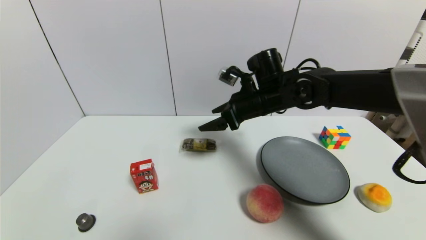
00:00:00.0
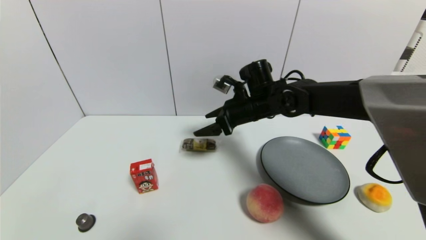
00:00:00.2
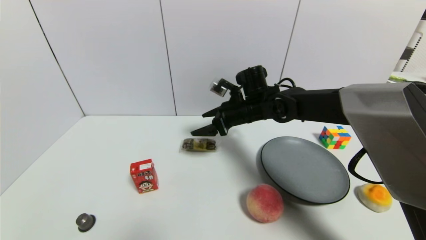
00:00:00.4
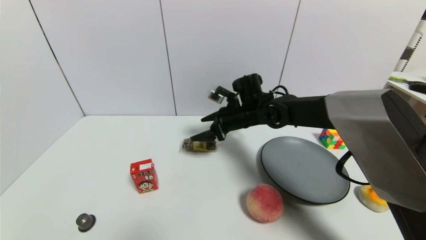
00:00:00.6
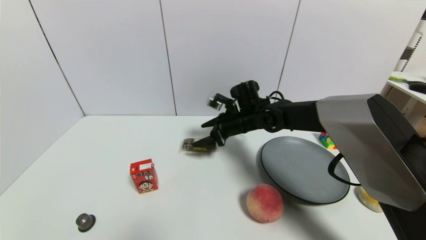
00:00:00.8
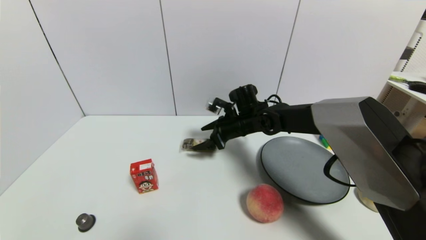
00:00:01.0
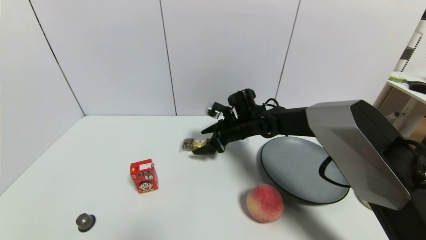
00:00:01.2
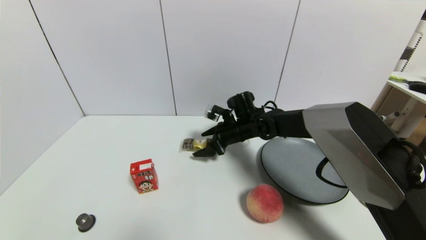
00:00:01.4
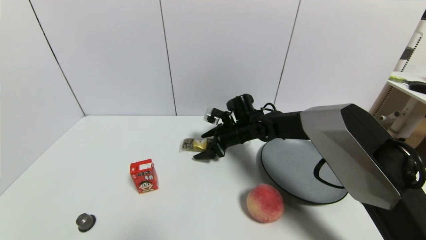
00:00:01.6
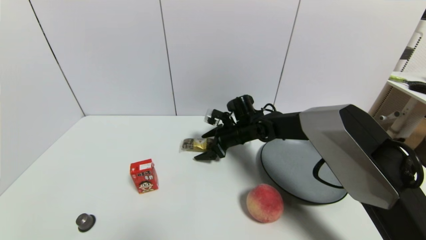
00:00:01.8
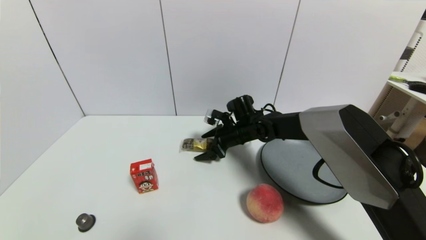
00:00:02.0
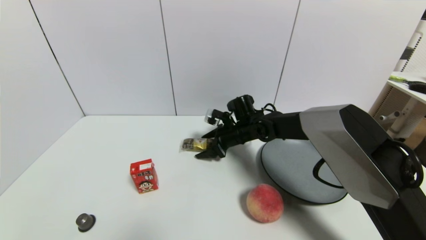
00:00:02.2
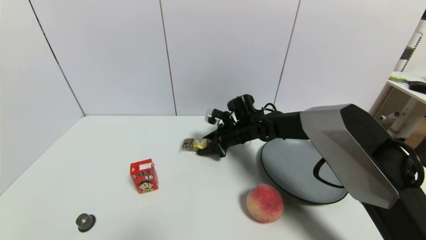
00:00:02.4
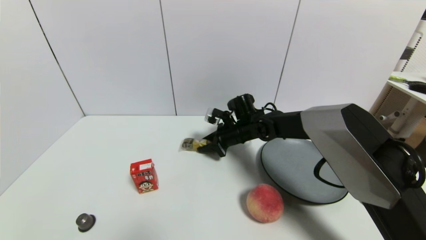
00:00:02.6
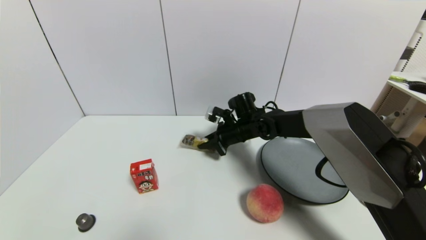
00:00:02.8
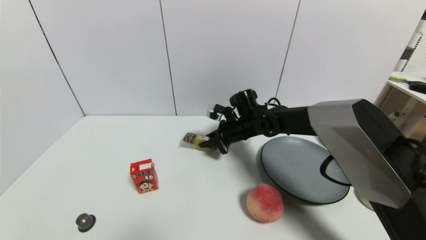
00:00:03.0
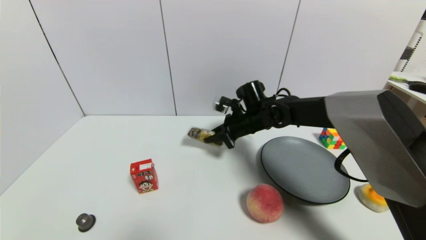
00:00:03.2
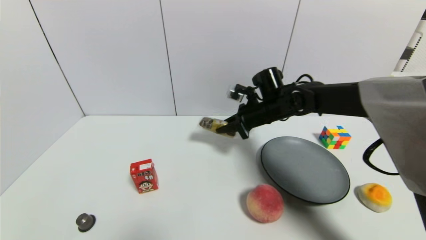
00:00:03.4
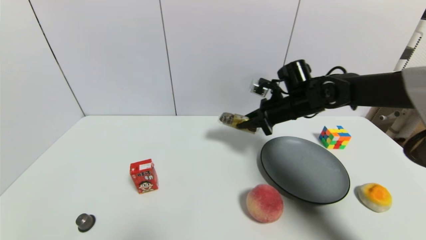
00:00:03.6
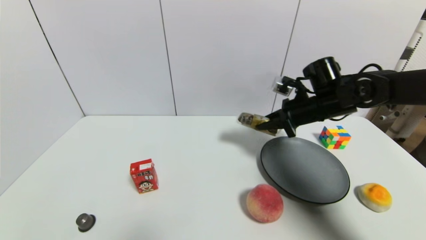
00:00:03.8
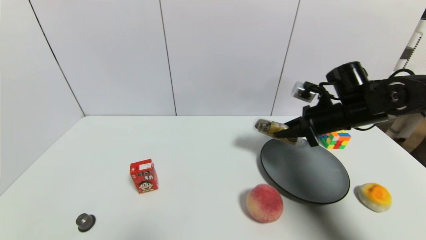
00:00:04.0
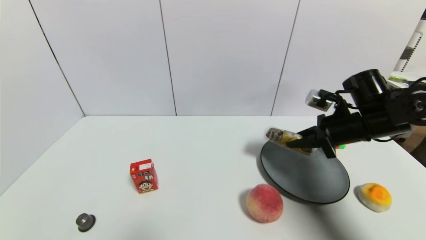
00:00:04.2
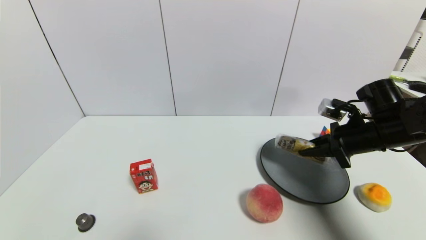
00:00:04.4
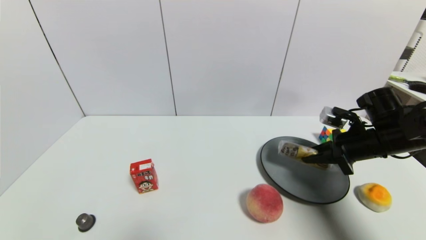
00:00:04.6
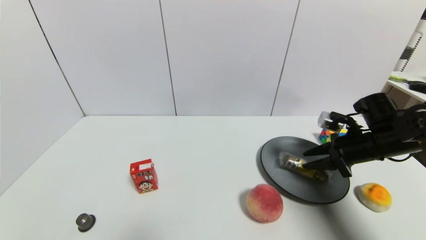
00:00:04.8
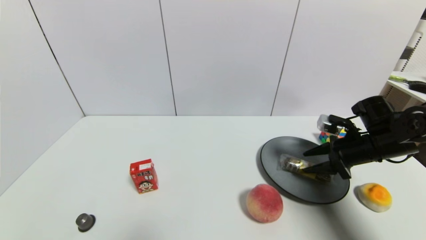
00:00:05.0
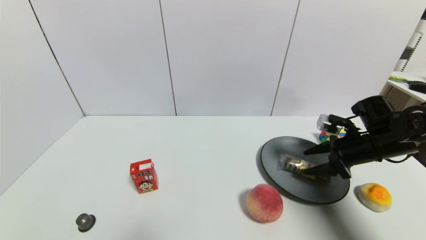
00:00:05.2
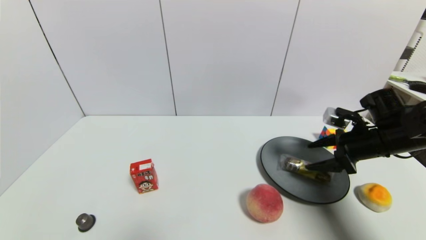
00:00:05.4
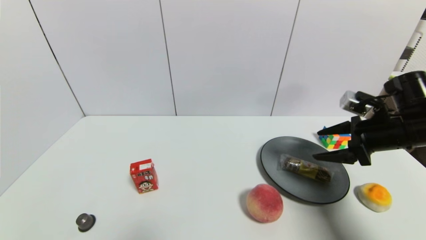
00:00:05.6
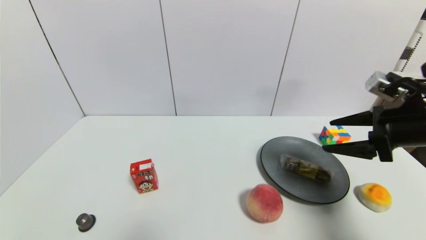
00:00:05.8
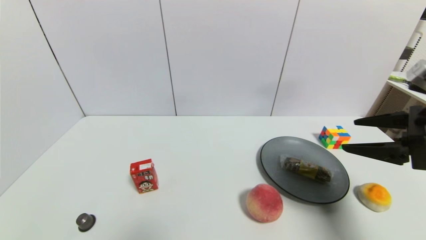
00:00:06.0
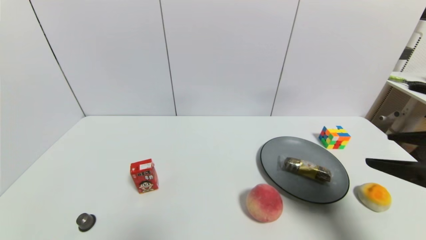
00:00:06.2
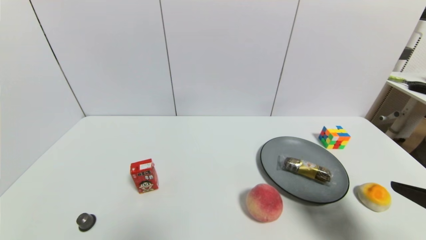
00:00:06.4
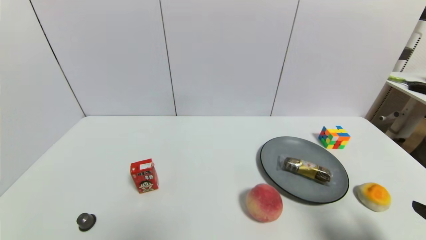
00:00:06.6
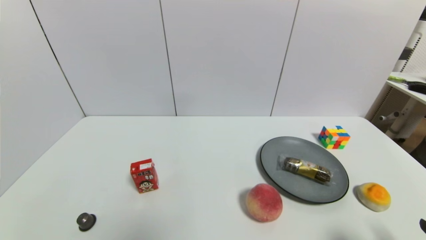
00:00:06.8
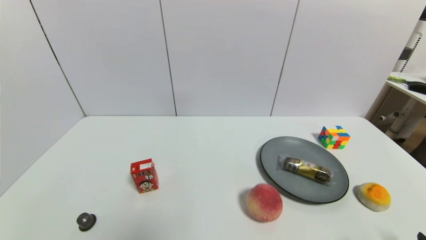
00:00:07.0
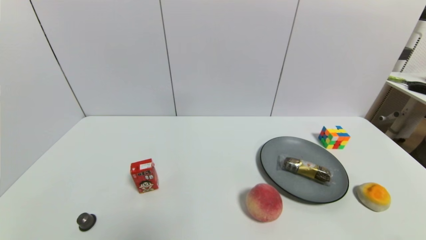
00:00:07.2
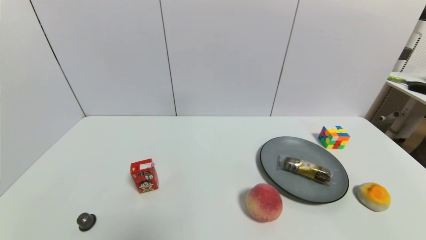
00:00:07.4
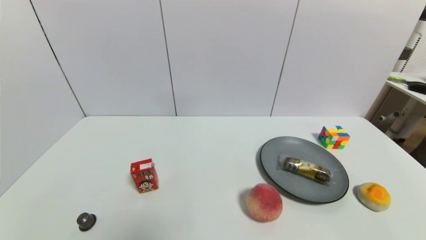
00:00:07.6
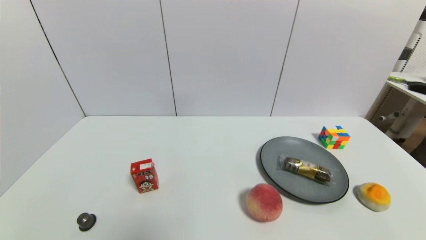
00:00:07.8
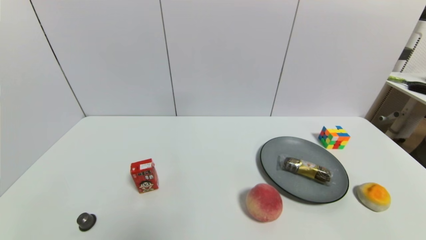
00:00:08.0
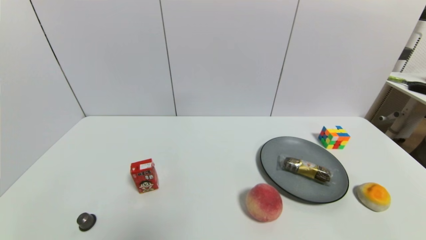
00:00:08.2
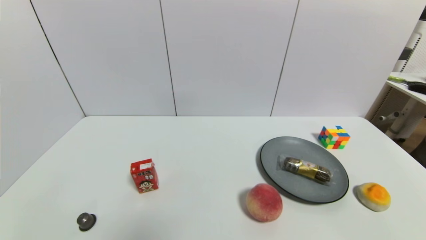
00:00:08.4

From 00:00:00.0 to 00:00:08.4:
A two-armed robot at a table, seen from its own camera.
Task of the whole recording: use a gripper to pick the target object and place on the gray plate.
Step, from 00:00:00.0 to 00:00:02.8: Grasp the chocolate with the right gripper.
Step, from 00:00:03.0 to 00:00:05.4: Place the chocolate on the gray plate with the right gripper.
From 00:00:00.0 to 00:00:01.4: The right gripper moves downward and forward, roughly 10 cm.
From 00:00:01.4 to 00:00:02.8: The right gripper closes up.
From 00:00:02.8 to 00:00:04.2: The right gripper heads to the right and backward, covering roughly 25 cm.
From 00:00:04.2 to 00:00:05.6: The right gripper ends up about 5 cm from where it was, and opens.
From 00:00:05.6 to 00:00:07.0: The right gripper is displaced backward by roughly 25 cm.
